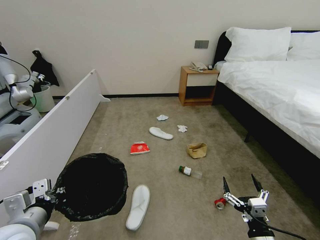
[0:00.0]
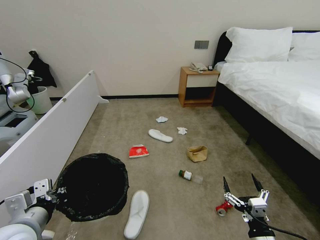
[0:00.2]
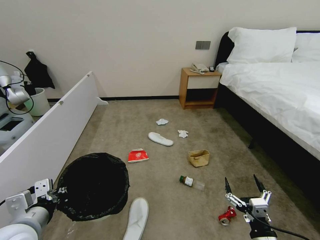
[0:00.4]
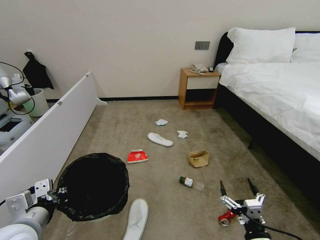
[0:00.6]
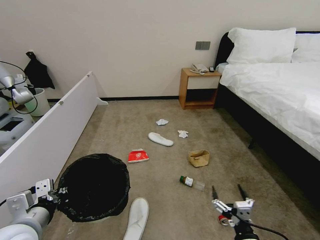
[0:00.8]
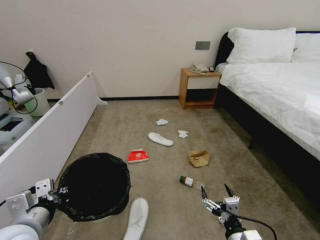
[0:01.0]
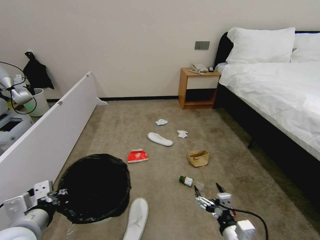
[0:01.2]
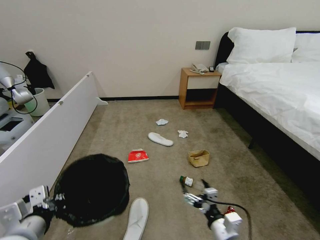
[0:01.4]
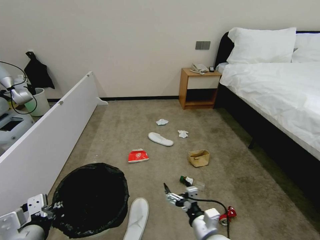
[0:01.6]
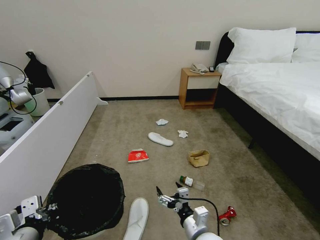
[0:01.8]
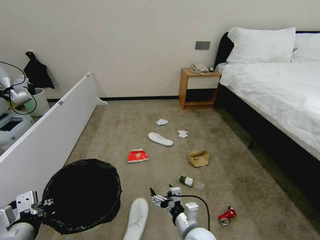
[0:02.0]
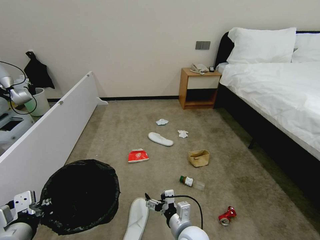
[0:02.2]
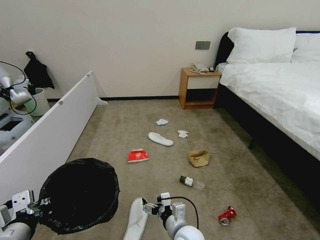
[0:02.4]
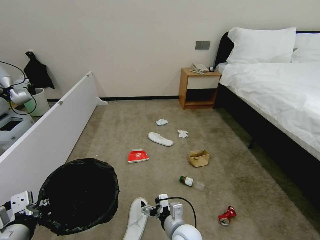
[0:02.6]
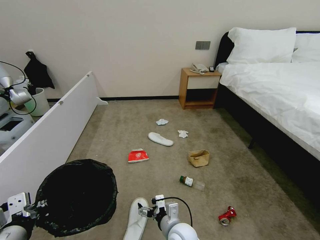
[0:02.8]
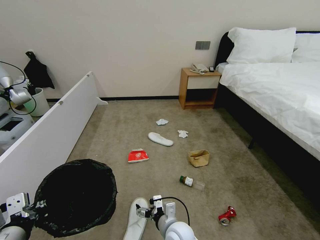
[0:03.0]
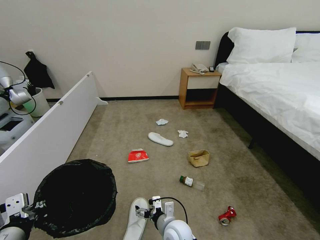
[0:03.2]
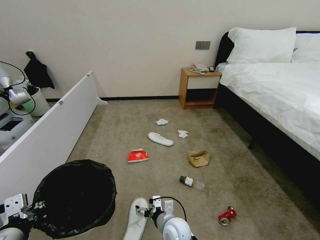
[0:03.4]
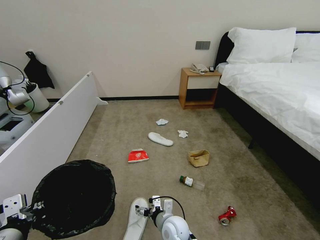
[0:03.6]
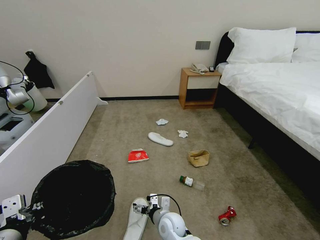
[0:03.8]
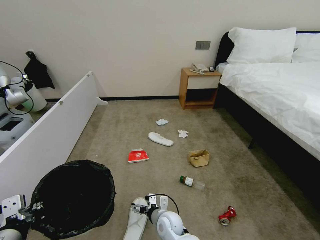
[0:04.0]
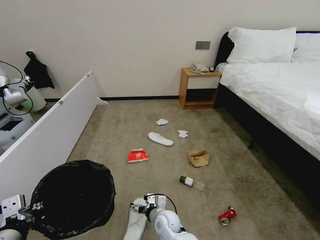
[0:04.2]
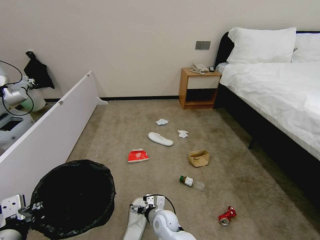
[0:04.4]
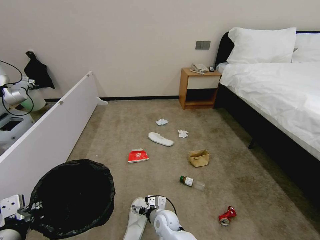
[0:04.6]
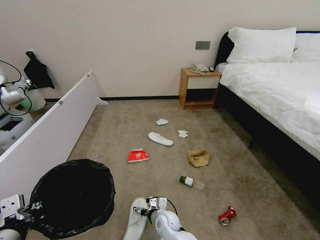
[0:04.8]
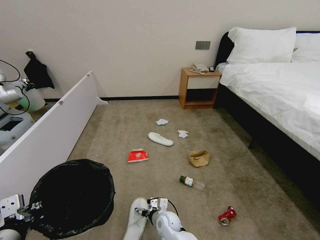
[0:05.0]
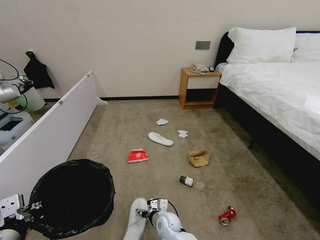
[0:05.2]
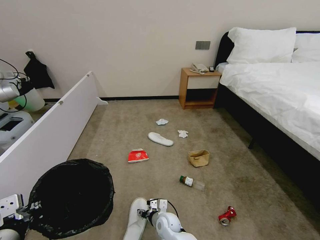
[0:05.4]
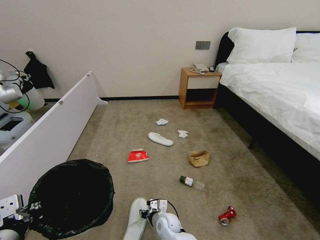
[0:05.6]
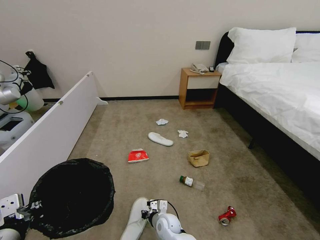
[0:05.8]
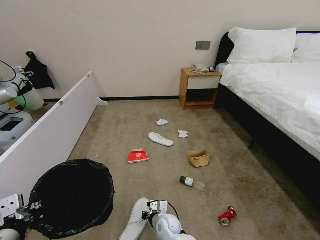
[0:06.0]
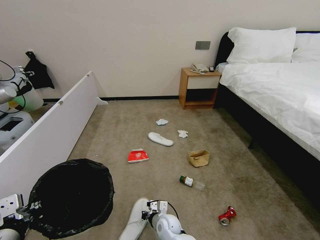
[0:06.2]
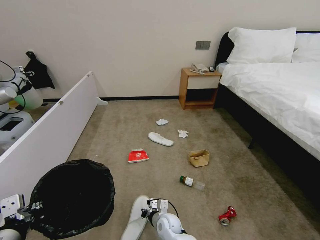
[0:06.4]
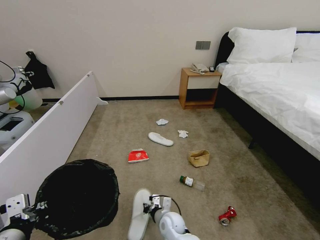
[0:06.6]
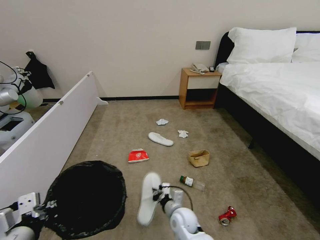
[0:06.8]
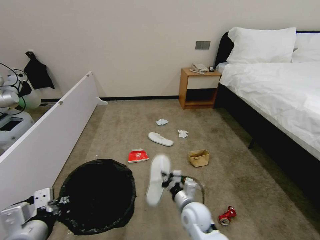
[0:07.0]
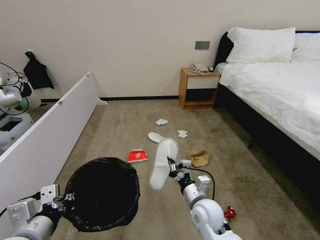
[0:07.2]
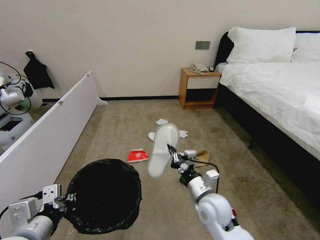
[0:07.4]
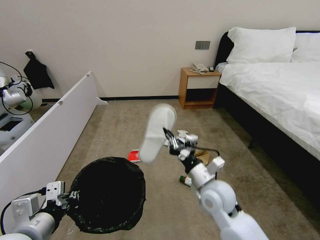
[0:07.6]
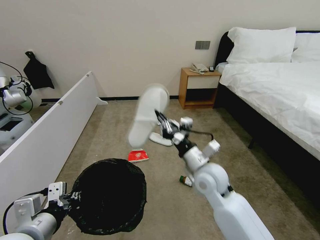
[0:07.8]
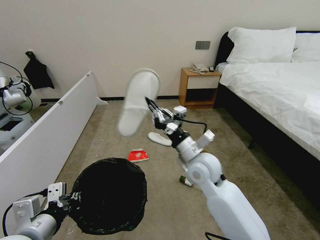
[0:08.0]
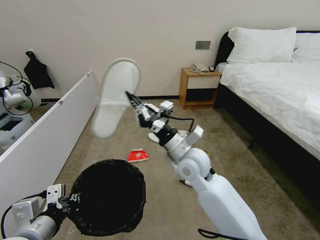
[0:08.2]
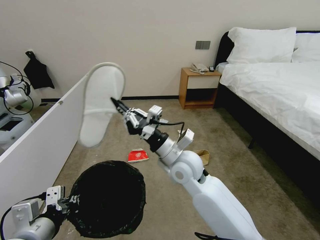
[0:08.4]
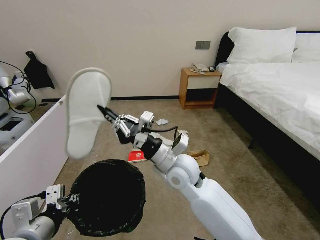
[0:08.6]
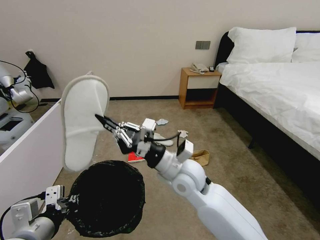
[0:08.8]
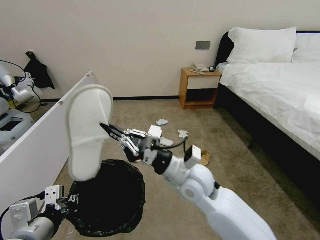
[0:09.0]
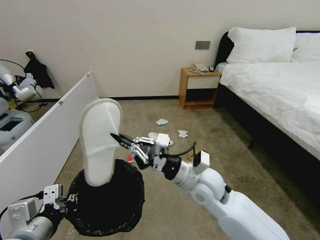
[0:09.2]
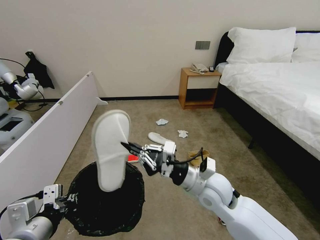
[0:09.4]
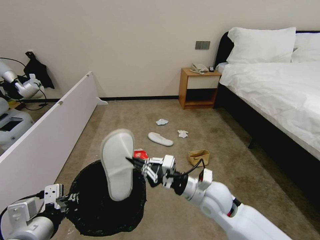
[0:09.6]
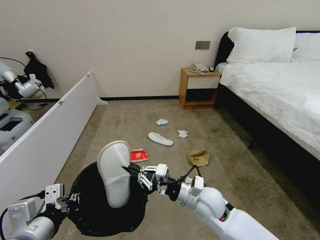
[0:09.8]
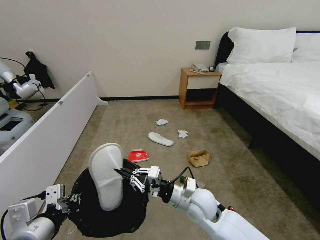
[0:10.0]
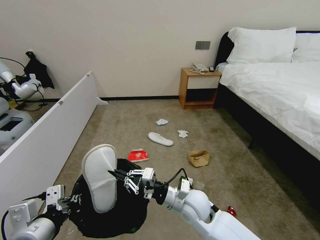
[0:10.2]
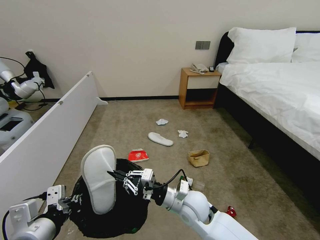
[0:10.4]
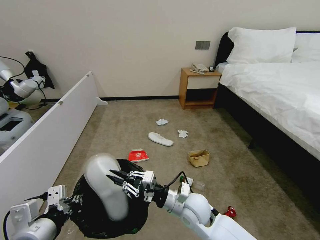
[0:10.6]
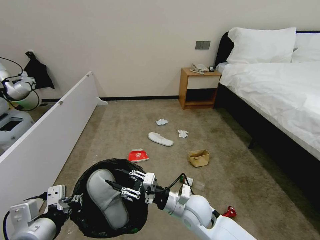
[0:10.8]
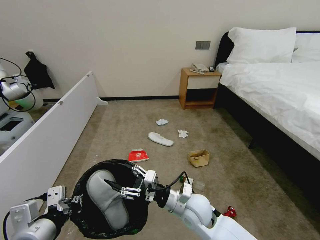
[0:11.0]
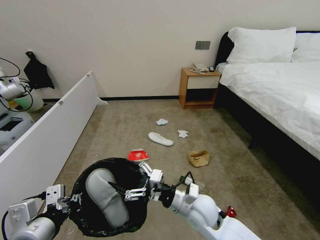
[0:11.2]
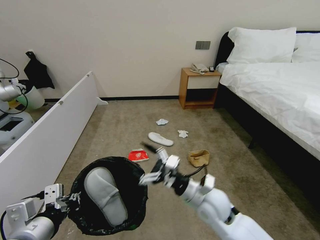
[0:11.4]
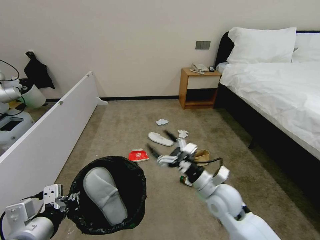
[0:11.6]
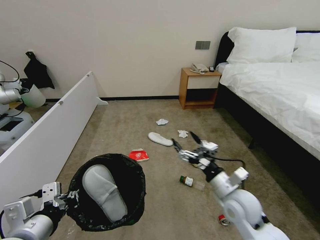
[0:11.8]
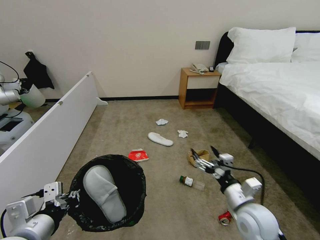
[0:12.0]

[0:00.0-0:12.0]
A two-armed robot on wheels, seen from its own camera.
Task of the whole recording: Pick up the trash bin, then pick up the garbage from the floor and place it into the trash bin.
0:00.0 to 0:01.6: The right gripper shifts about 5 cm to the left.
0:01.6 to 0:03.0: The right gripper shifts some 20 cm to the left and forward.
0:03.0 to 0:04.4: The right gripper heads forward and downward, covering approximately 10 cm.
0:04.4 to 0:06.0: The right gripper closes.
0:06.0 to 0:07.6: The right gripper moves upward and to the right, roughly 30 cm.
0:07.6 to 0:09.0: The right gripper shifts about 10 cm to the left and upward.
0:09.0 to 0:10.4: The right gripper is displaced downward by some 10 cm.
0:10.4 to 0:12.0: The right gripper shifts some 15 cm to the right, and opens up.

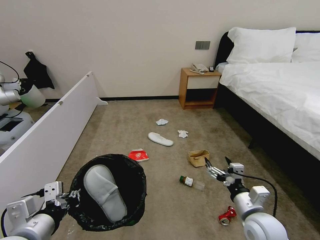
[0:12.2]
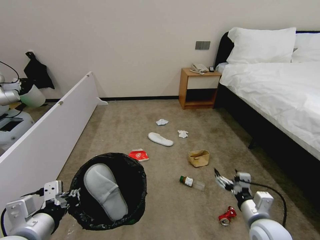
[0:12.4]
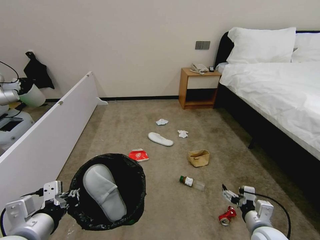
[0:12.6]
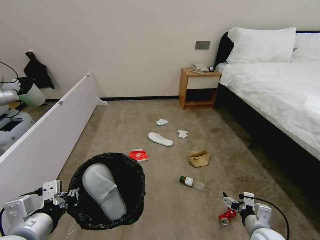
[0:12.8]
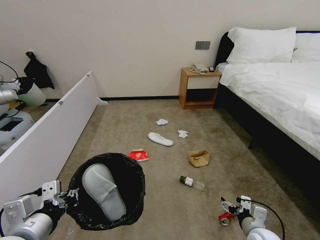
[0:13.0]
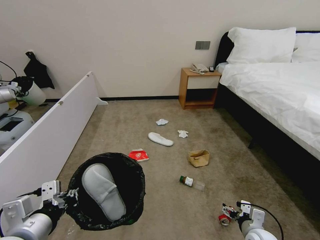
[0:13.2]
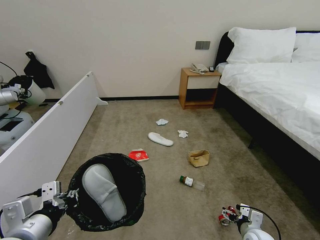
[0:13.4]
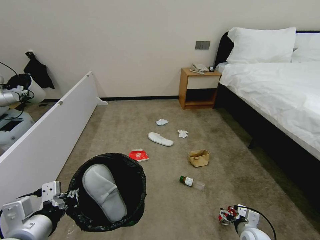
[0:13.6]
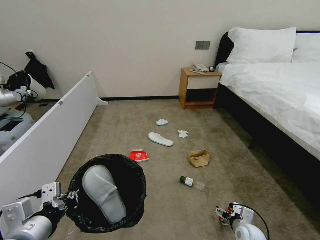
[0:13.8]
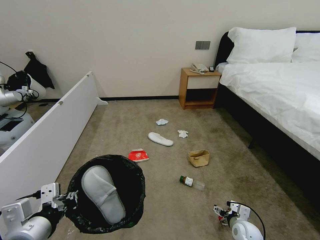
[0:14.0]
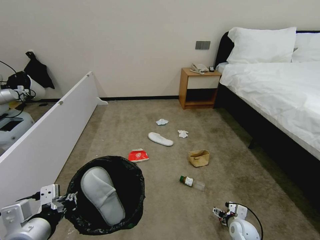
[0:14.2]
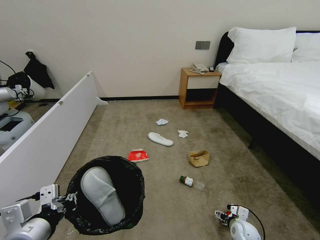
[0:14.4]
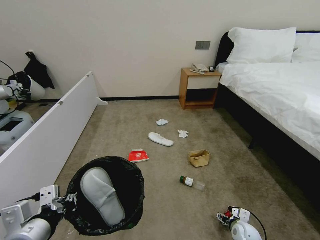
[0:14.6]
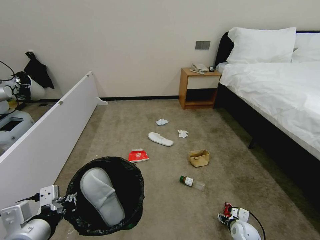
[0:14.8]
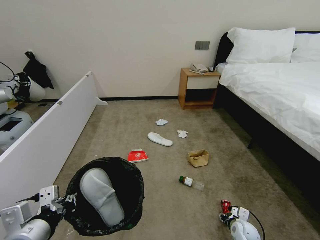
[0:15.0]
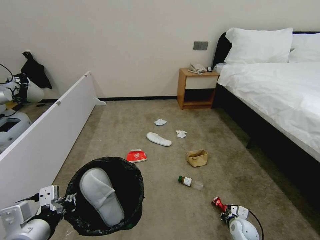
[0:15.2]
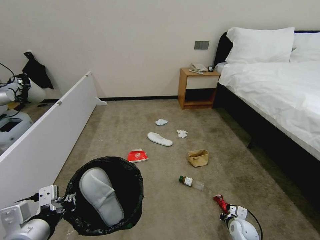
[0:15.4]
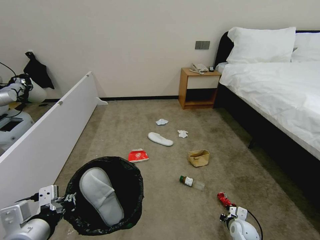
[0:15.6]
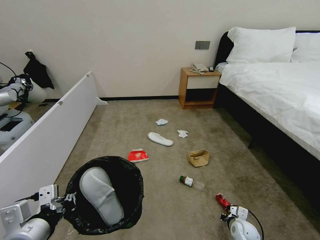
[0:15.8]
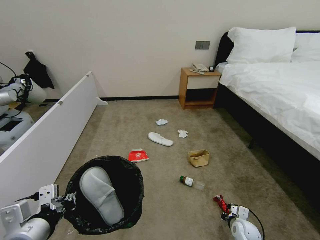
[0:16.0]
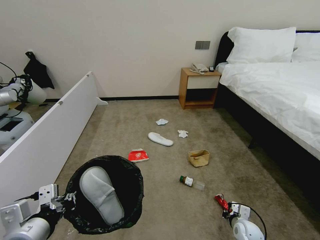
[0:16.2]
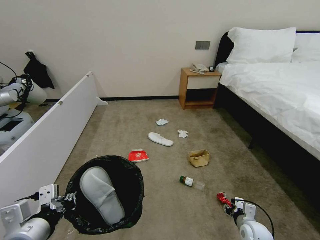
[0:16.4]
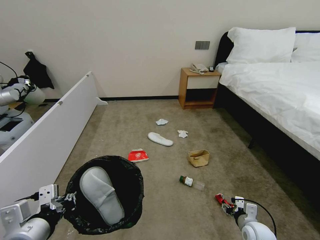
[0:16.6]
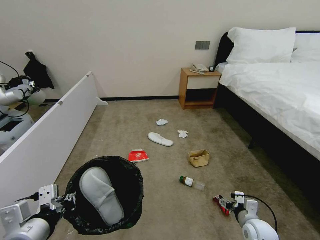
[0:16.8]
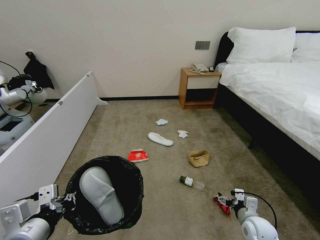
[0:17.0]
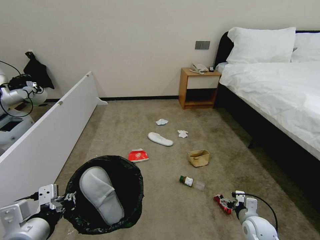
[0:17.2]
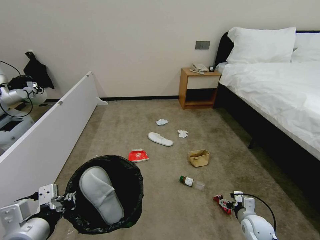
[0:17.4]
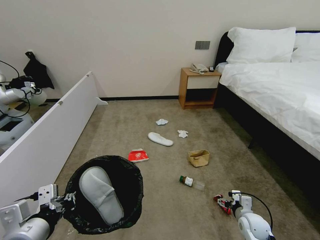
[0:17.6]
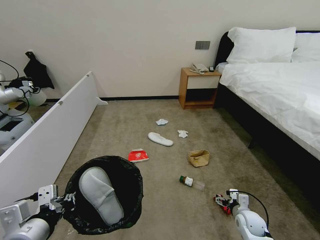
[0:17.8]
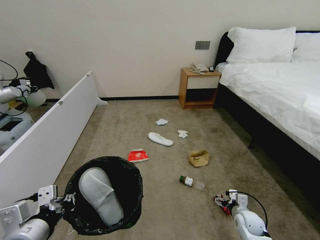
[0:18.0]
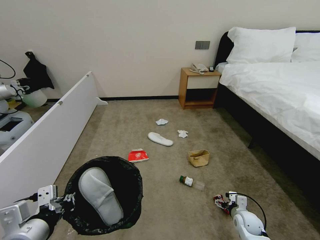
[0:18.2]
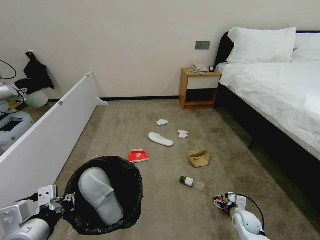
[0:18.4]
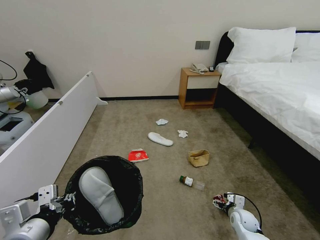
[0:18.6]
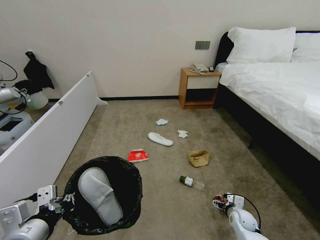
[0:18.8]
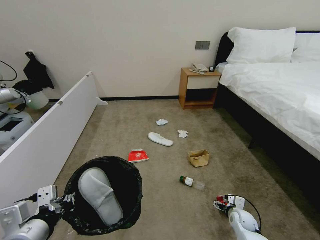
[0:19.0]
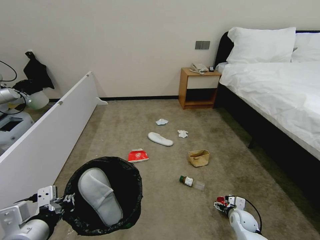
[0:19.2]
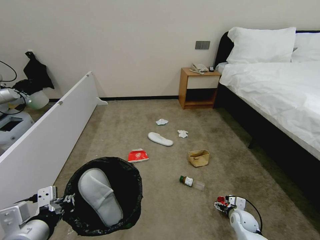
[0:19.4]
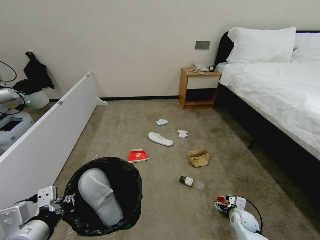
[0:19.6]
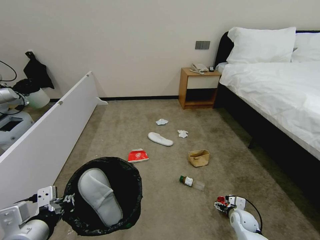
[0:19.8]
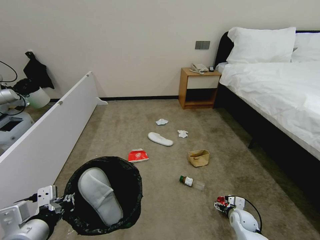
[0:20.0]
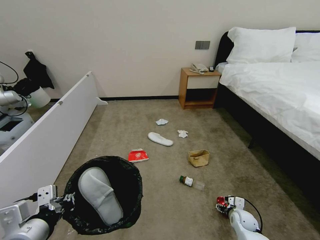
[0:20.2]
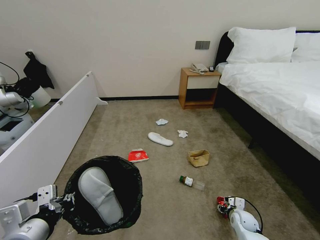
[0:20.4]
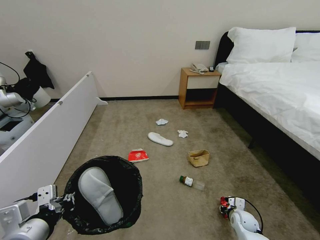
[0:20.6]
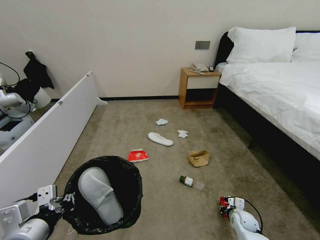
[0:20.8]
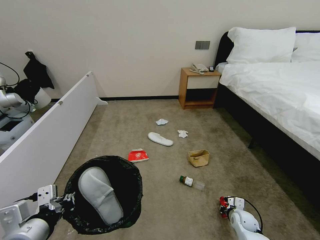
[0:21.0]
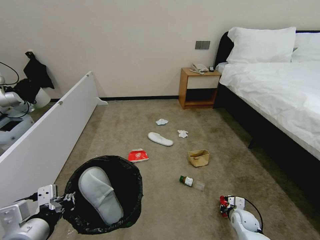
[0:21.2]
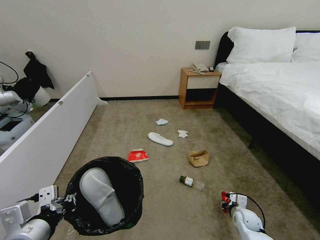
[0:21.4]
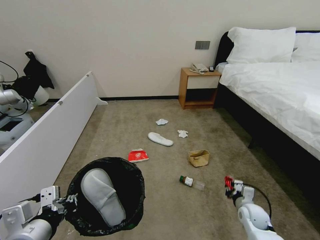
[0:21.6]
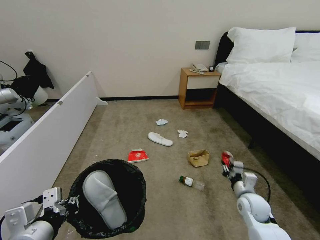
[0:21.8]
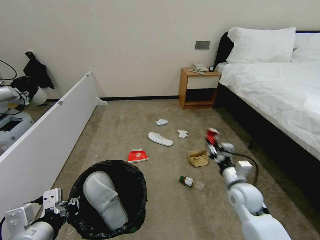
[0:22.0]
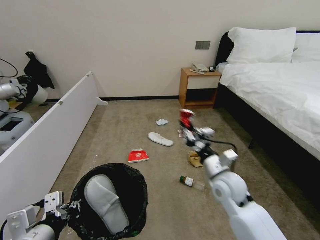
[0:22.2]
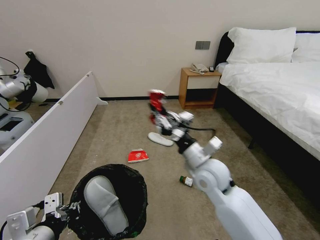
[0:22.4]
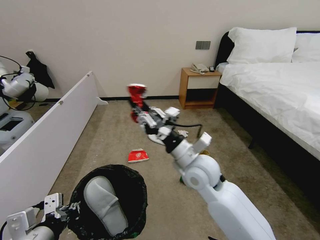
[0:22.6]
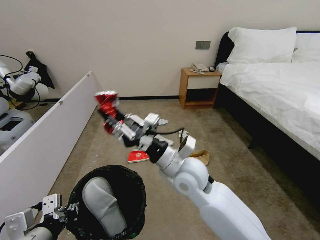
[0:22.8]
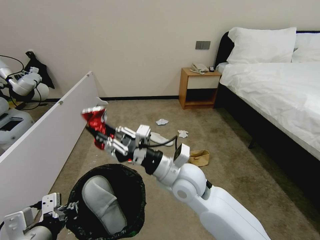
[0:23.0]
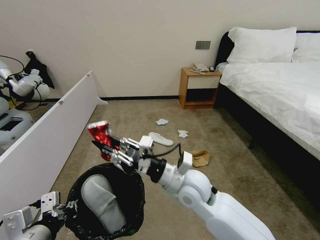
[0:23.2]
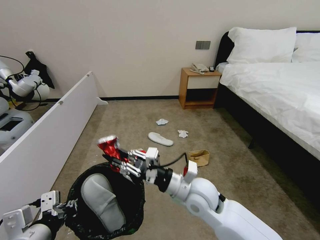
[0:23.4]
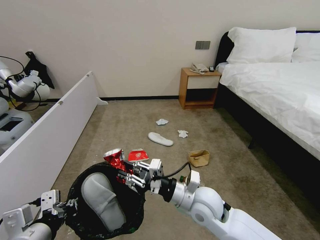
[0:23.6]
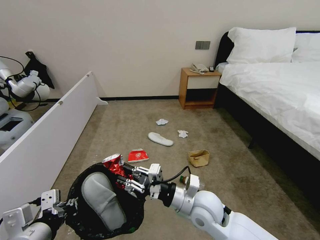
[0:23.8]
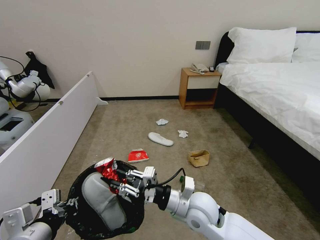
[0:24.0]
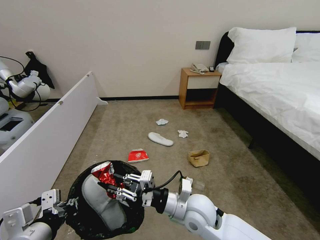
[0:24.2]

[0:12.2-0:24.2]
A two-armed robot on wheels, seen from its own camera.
Task of the whole recording: Pick up the trash bin, then pick up the garbage from the floor and place it into the trash bin.
0:12.2 to 0:13.8: The right gripper moves downward, about 20 cm.
0:13.8 to 0:15.2: The right gripper ends up about 5 cm from where it was, and closes its fingers.
0:15.2 to 0:16.6: The right gripper is displaced upward by roughly 10 cm.
0:16.6 to 0:18.2: The right gripper shifts approximately 5 cm forward, and opens up.
0:18.2 to 0:19.8: The grippers make only small movements.
0:19.8 to 0:21.2: The right gripper closes up.
0:21.2 to 0:22.6: The right gripper goes some 40 cm upward and to the left.
0:22.6 to 0:24.2: The right gripper is displaced downward and backward by roughly 10 cm.
